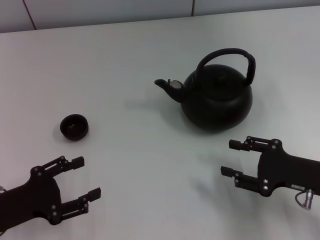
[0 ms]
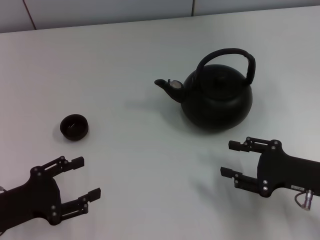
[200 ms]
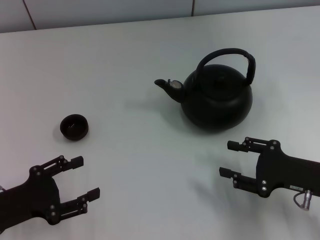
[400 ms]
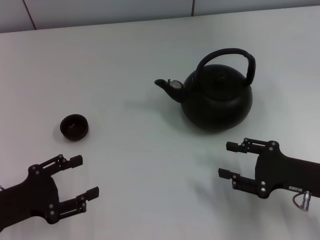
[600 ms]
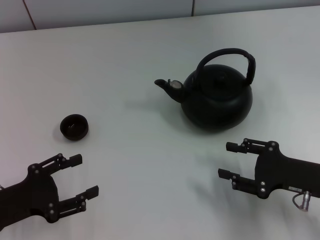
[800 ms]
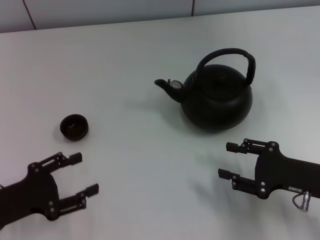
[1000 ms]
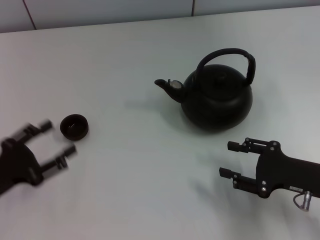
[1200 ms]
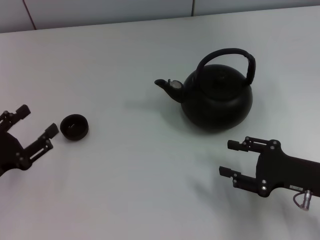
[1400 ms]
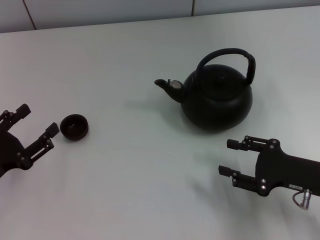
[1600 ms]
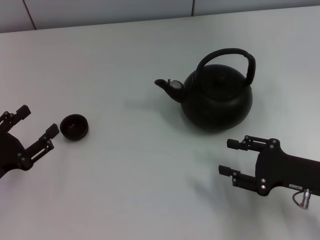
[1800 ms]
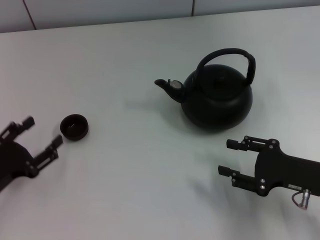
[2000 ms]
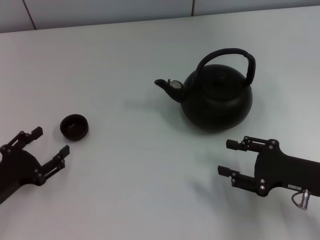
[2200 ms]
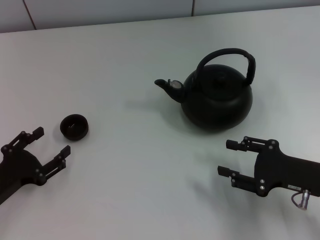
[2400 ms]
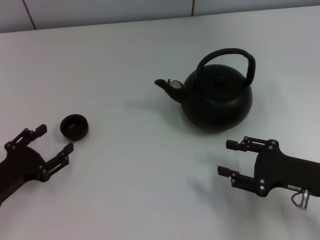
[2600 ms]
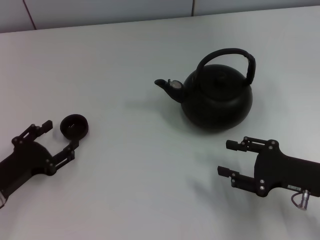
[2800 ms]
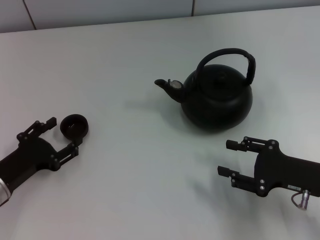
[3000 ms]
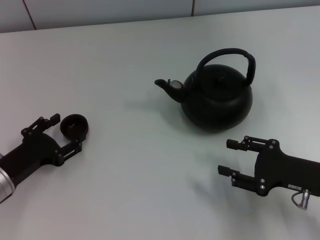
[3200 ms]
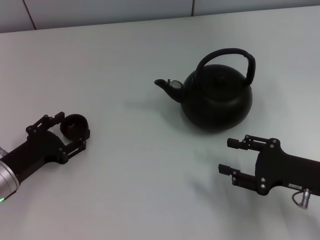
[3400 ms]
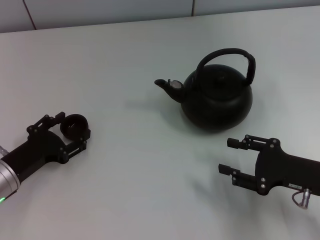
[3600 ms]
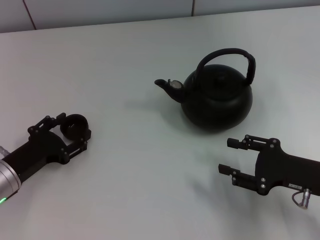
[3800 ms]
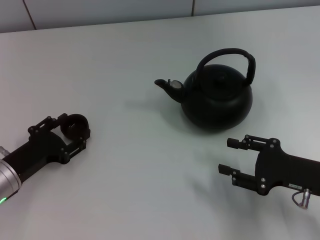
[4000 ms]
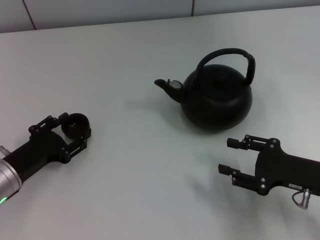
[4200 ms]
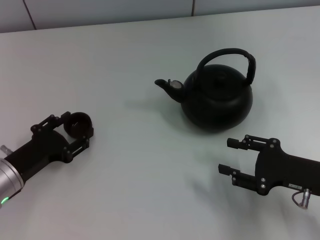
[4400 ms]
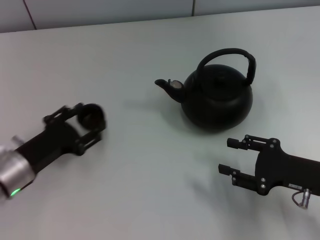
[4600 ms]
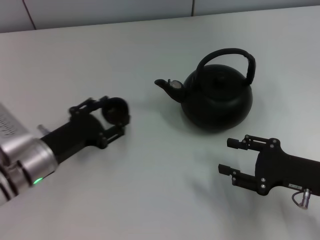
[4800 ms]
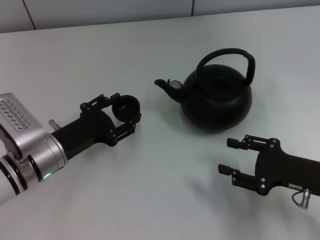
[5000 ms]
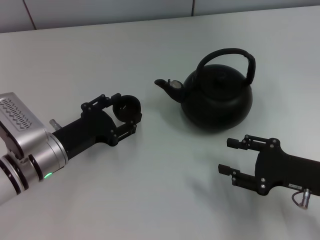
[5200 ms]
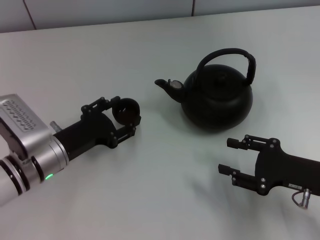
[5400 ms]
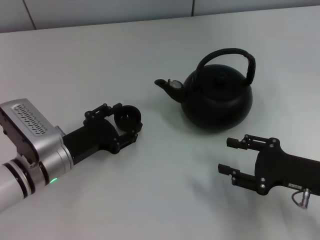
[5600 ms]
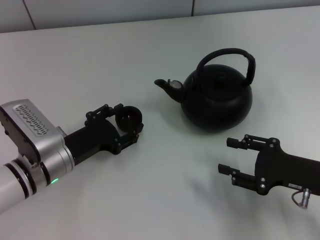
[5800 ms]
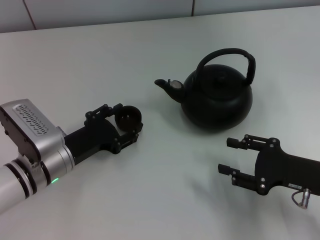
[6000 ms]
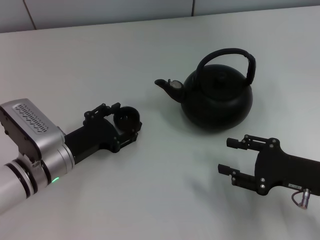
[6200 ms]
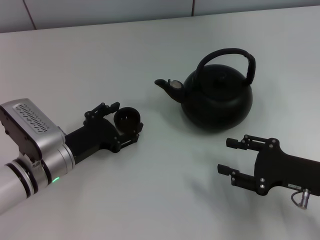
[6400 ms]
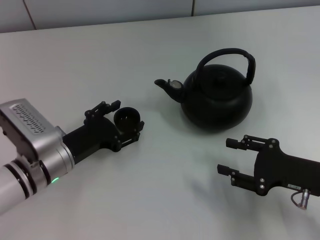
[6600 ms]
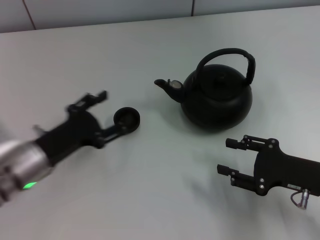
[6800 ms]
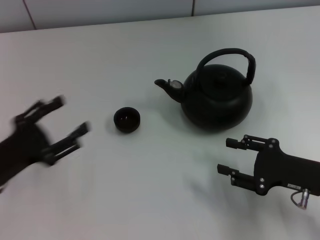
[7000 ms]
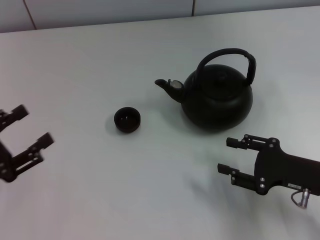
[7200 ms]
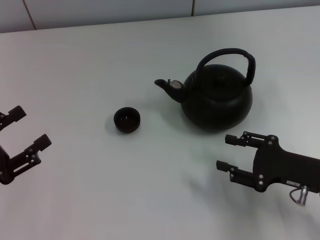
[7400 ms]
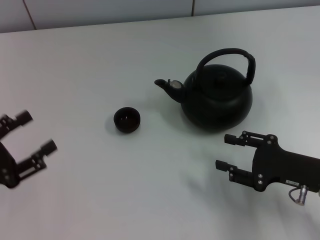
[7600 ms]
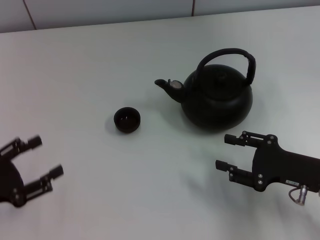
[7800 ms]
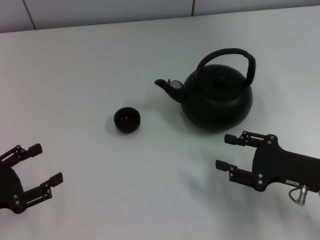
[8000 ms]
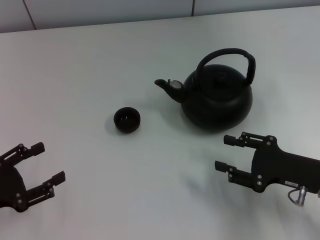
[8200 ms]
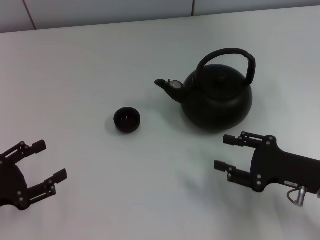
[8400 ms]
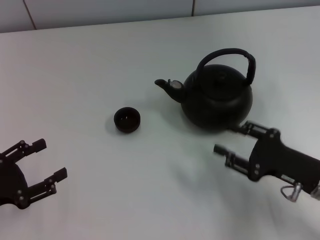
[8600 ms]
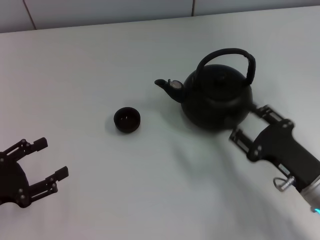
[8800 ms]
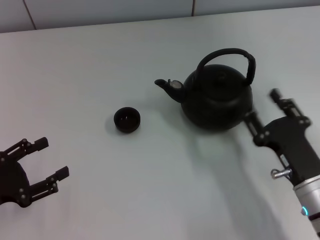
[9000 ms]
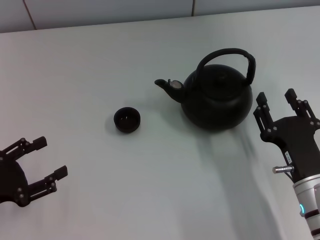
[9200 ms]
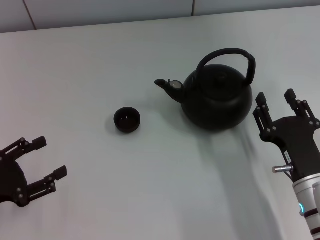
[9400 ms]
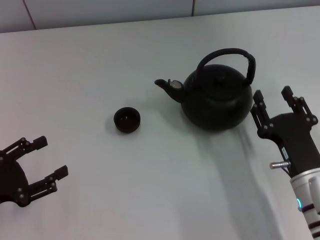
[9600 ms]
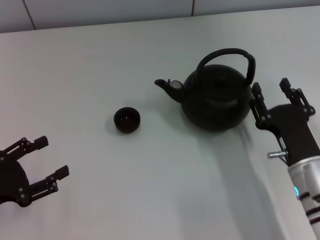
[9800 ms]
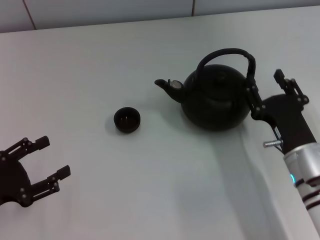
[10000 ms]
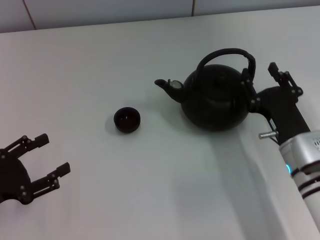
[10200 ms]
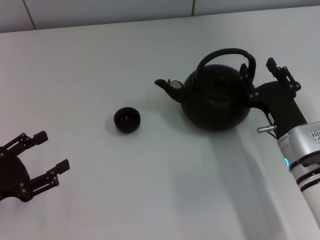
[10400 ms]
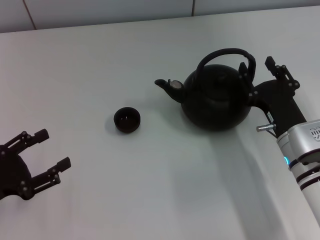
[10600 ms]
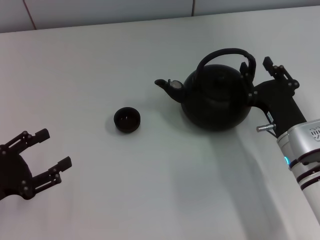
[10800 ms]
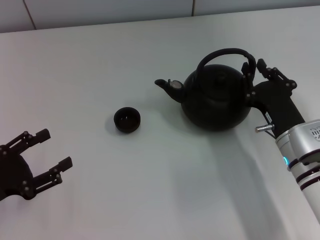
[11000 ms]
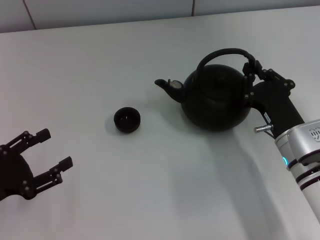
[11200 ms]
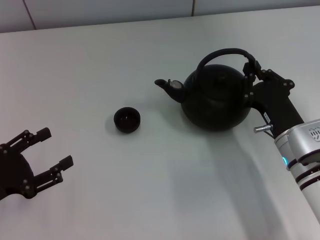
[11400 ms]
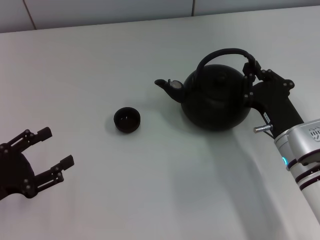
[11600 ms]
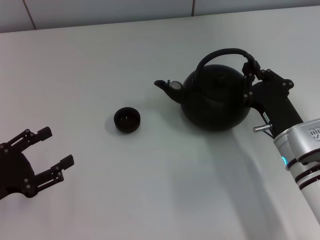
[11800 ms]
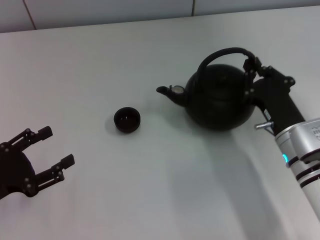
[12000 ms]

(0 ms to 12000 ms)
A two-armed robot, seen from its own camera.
Task of the whole recording: Grasp the handle of the teapot with one hand and pour tea into the teacup.
Step, 0 ms - 4400 ms: Pick up the teacup with the left gripper.
Step, 4800 ms - 7200 ms: Place the teacup in the center of view with the left gripper.
1600 ms - 3000 ms: The left gripper shifts by about 5 cm.
3000 ms - 4400 ms: There are only small adjustments of the grippers.
4400 ms - 6000 ms: The left gripper goes roughly 5 cm to the right, and opens its fingers.
6000 ms - 7600 ms: The left gripper shifts some 15 cm to the left and backward, and opens.
7600 ms - 9000 ms: The right gripper heads to the left, covering roughly 5 cm.
9000 ms - 10400 ms: The right gripper moves forward, roughly 5 cm.
10400 ms - 12000 ms: The right gripper closes.

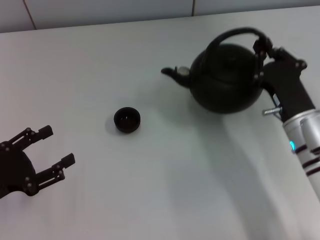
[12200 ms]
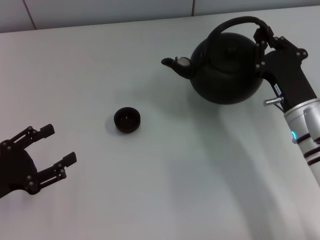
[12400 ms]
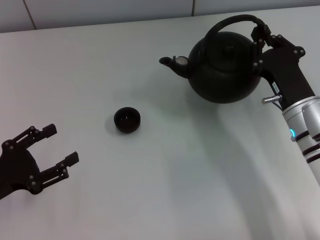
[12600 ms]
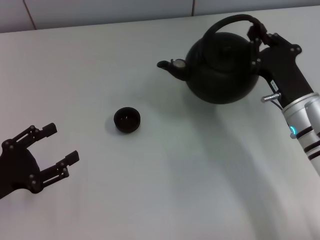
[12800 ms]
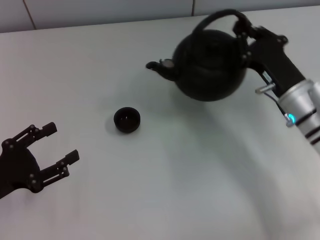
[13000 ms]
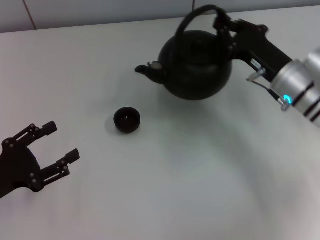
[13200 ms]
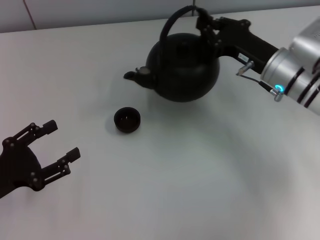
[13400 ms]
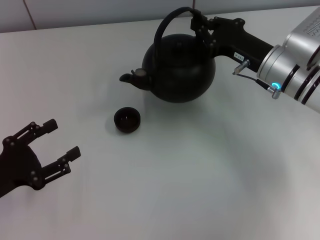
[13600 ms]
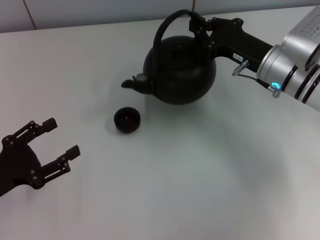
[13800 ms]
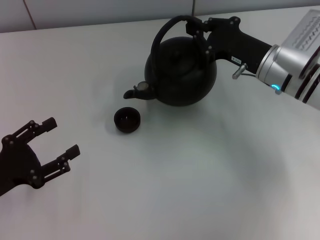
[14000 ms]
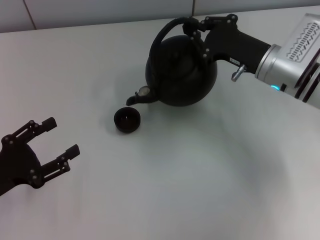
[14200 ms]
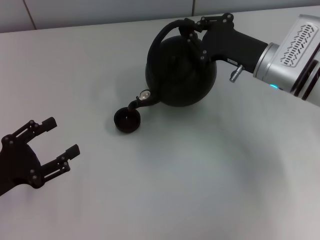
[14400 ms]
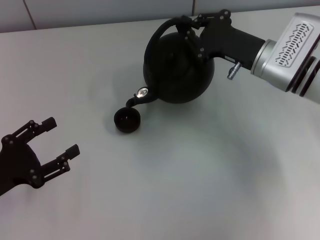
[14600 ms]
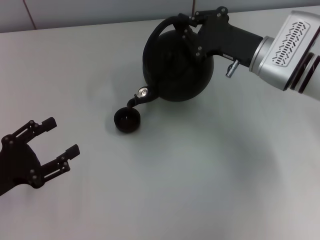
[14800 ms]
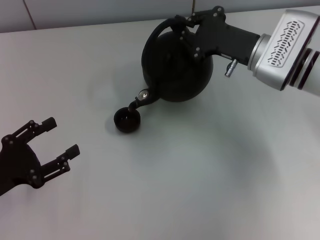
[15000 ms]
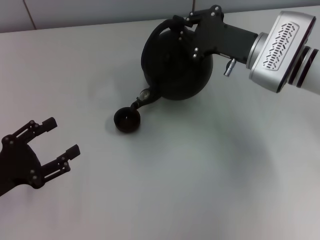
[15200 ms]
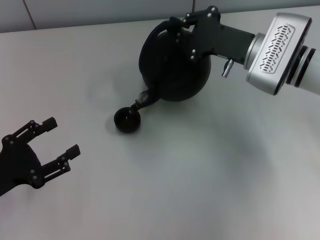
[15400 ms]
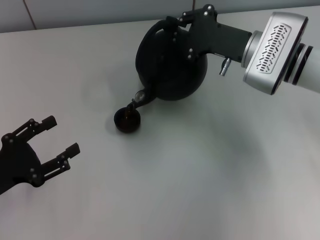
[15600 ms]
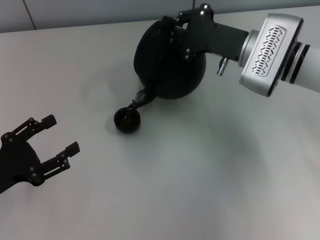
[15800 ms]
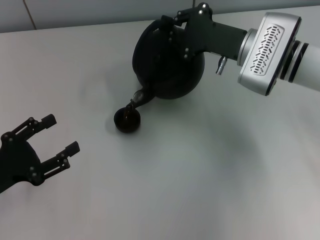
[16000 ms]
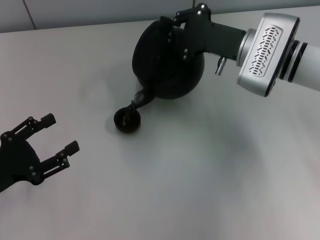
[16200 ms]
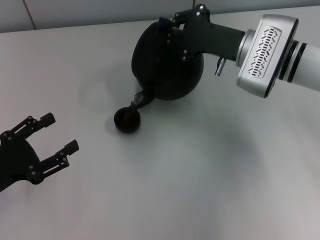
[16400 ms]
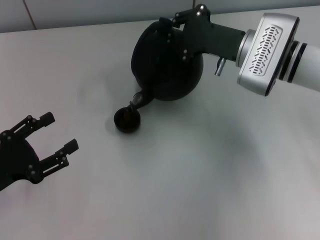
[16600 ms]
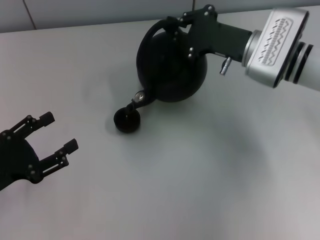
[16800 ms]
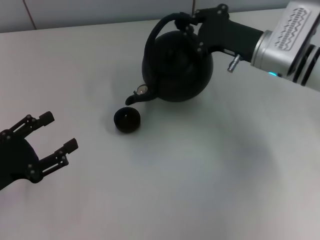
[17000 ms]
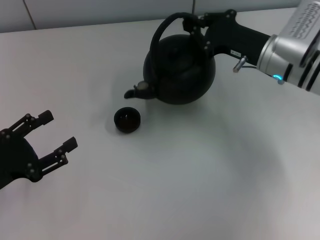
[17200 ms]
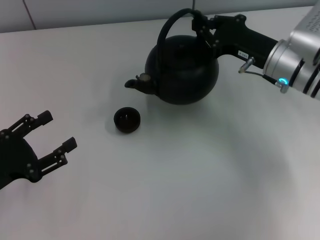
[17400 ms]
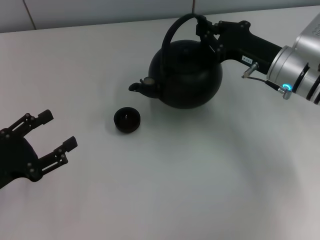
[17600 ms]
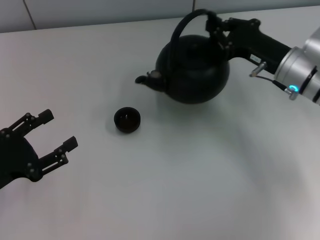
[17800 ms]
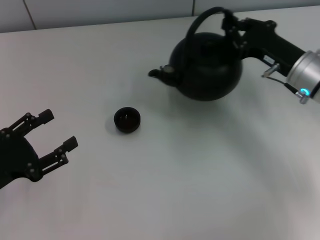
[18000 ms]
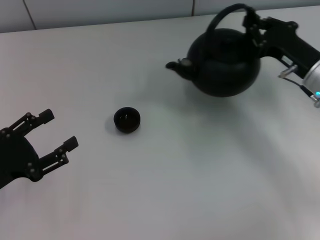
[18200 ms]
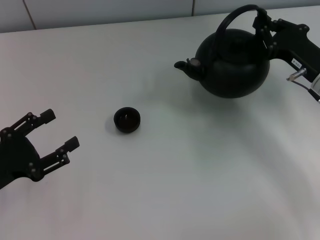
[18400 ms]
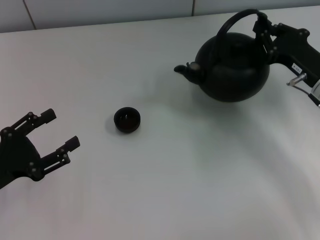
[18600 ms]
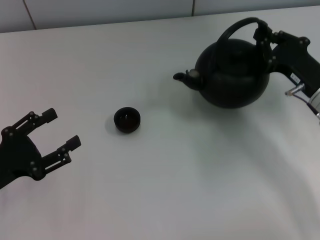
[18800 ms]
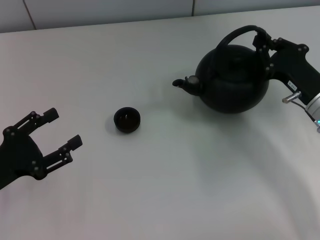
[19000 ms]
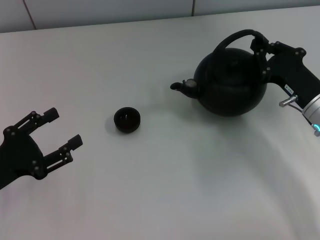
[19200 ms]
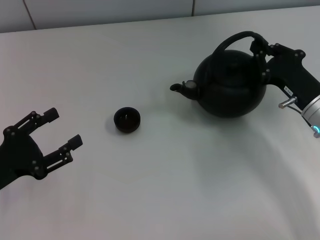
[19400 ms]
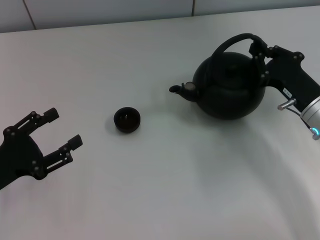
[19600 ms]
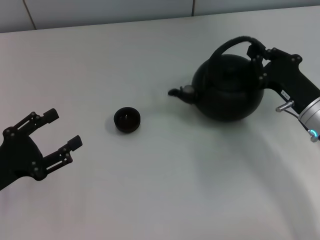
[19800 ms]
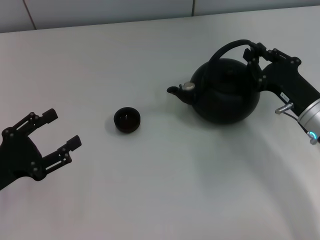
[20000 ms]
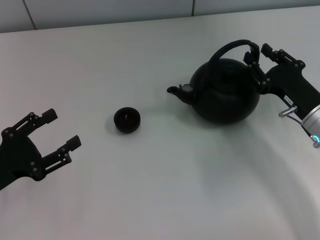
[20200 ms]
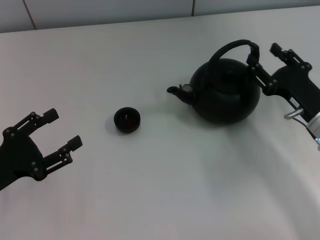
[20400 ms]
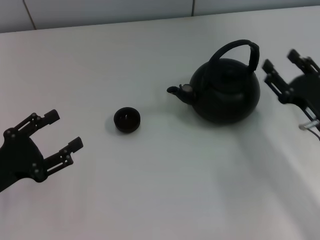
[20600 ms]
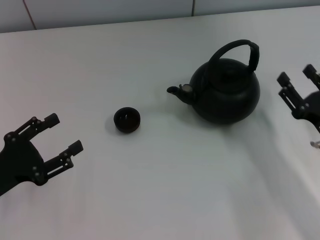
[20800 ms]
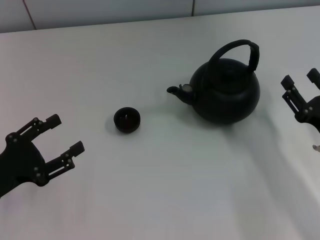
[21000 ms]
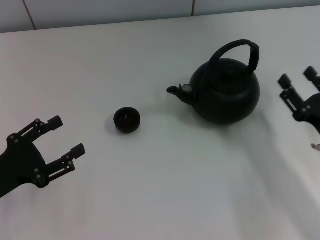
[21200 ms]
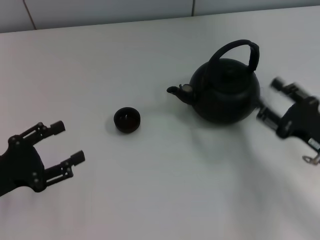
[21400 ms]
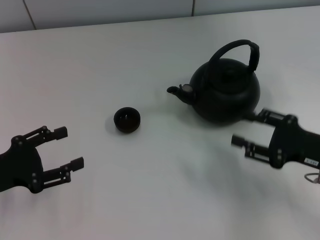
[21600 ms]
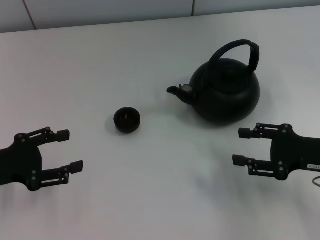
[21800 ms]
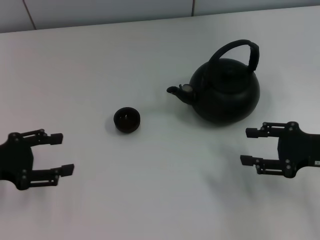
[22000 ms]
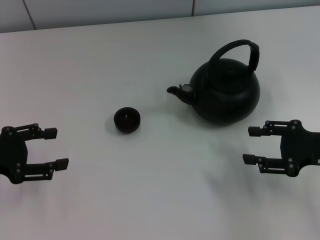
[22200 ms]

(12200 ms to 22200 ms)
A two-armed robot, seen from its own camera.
Task of the whole recording: Grasp the handle of the teapot with one hand and pour tea into the teacup.
Step, 17200 ms - 20200 ms: Put down the teapot with the right gripper.
12200 ms - 13600 ms: The right gripper moves forward, roughly 10 cm.
15000 ms - 16400 ms: The grippers make only small movements.
16400 ms - 18000 ms: The right gripper shifts approximately 5 cm to the right.
18000 ms - 19400 ms: The right gripper is displaced backward by roughly 5 cm.
19400 ms - 20800 ms: The right gripper heads backward, covering some 10 cm, and opens up.
20800 ms - 22200 ms: The right gripper is displaced upward by approximately 5 cm. The left gripper goes about 10 cm forward and upward.
